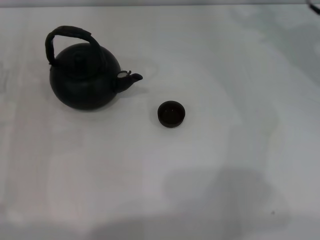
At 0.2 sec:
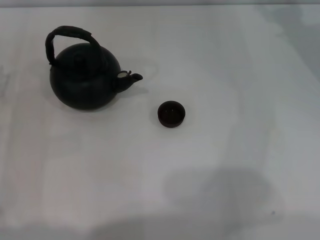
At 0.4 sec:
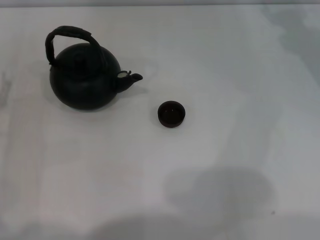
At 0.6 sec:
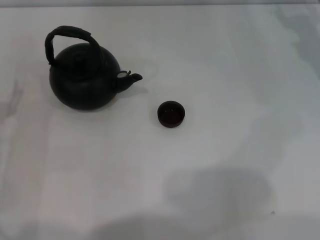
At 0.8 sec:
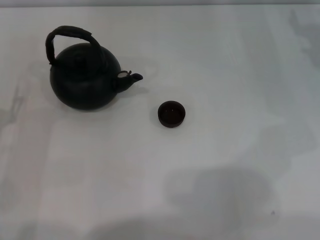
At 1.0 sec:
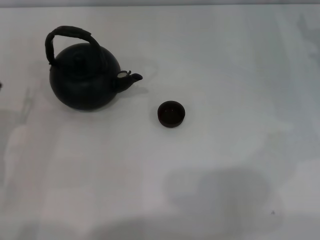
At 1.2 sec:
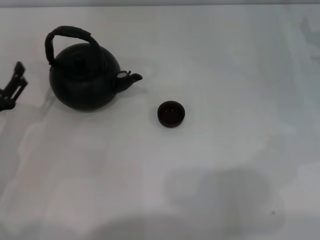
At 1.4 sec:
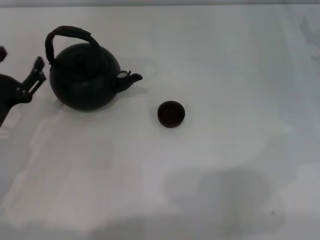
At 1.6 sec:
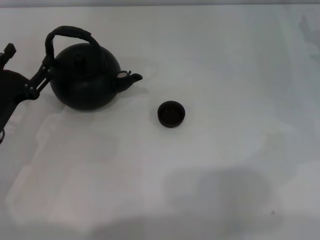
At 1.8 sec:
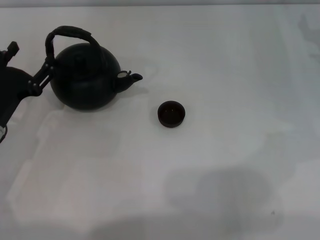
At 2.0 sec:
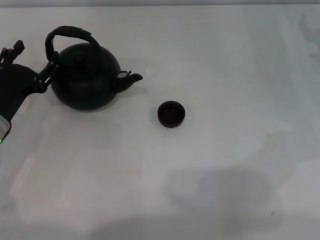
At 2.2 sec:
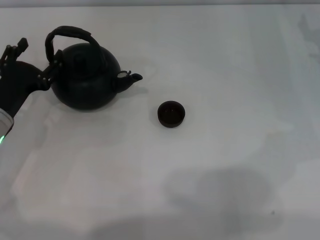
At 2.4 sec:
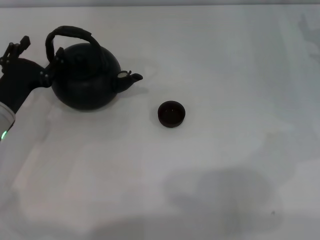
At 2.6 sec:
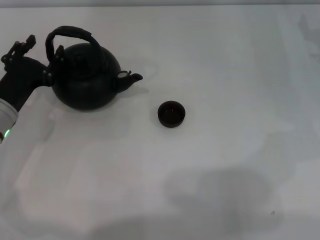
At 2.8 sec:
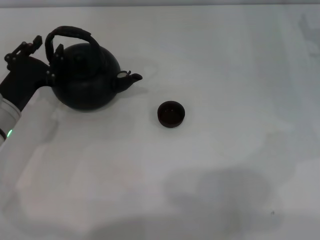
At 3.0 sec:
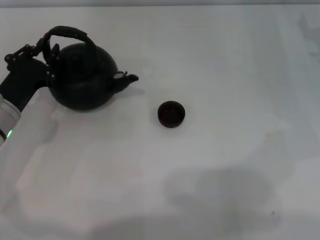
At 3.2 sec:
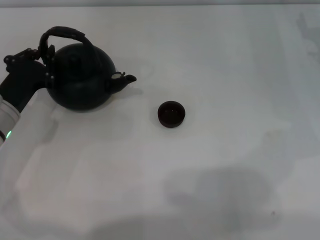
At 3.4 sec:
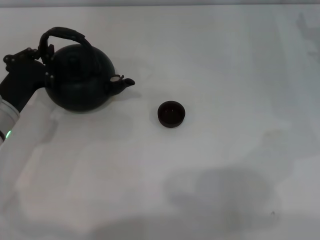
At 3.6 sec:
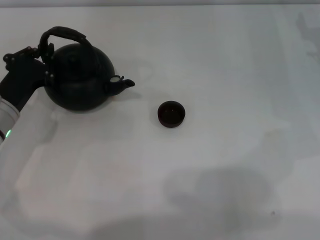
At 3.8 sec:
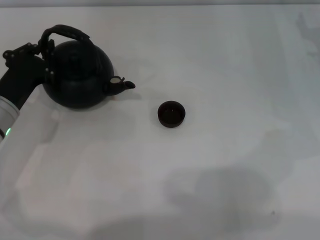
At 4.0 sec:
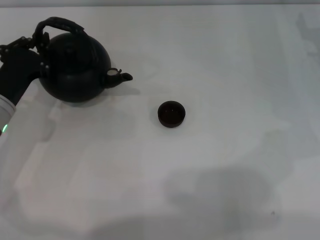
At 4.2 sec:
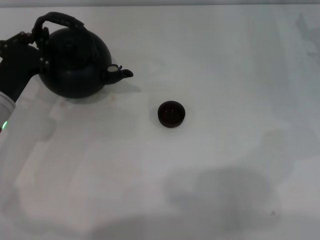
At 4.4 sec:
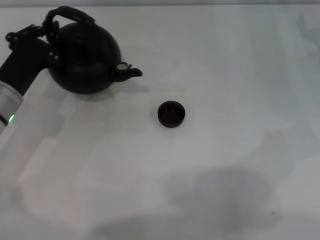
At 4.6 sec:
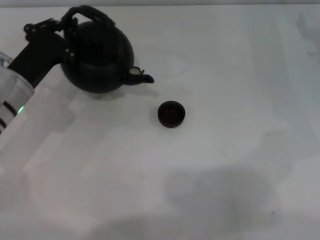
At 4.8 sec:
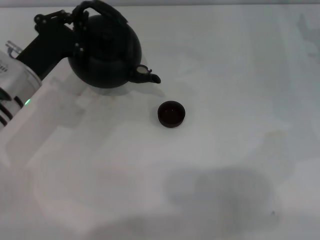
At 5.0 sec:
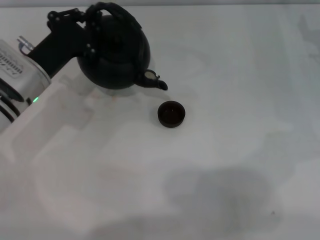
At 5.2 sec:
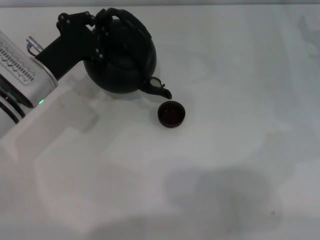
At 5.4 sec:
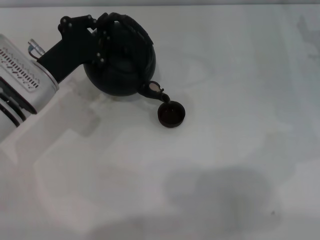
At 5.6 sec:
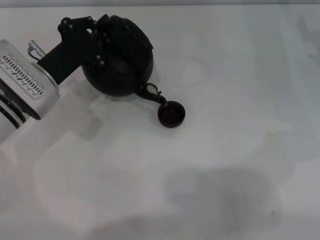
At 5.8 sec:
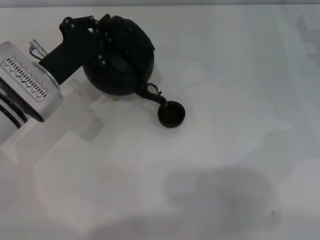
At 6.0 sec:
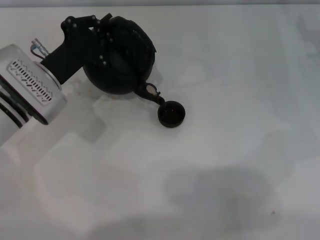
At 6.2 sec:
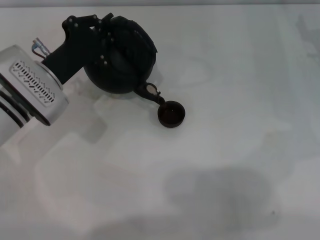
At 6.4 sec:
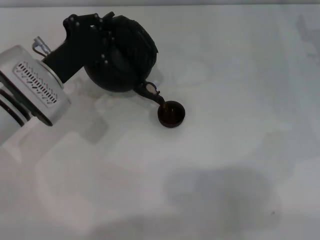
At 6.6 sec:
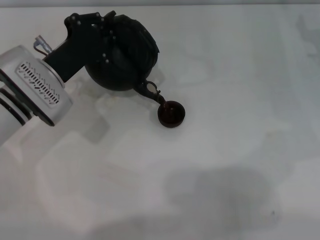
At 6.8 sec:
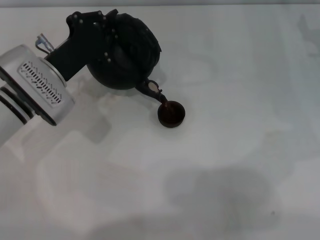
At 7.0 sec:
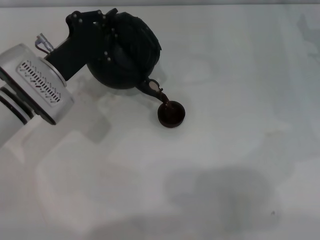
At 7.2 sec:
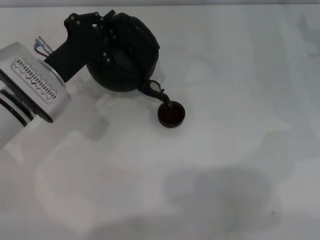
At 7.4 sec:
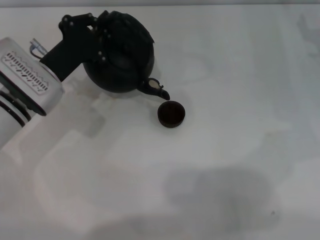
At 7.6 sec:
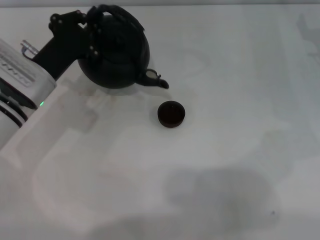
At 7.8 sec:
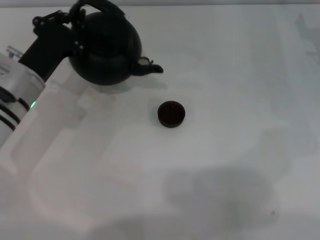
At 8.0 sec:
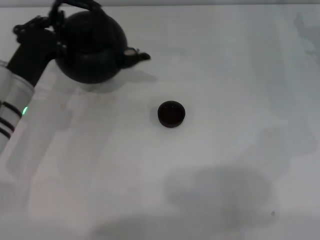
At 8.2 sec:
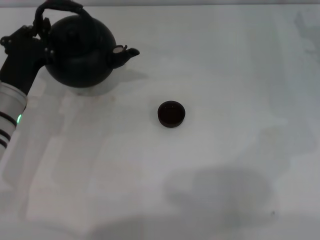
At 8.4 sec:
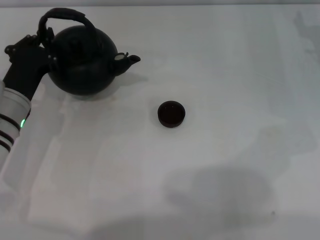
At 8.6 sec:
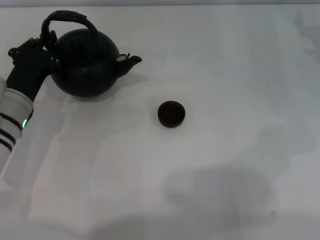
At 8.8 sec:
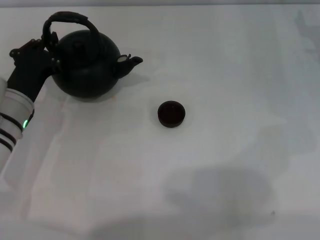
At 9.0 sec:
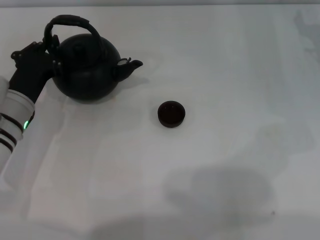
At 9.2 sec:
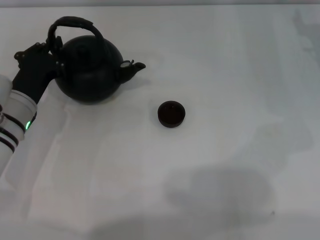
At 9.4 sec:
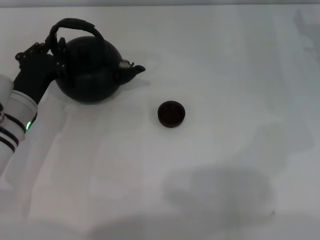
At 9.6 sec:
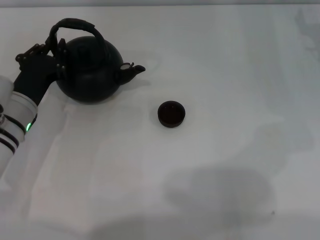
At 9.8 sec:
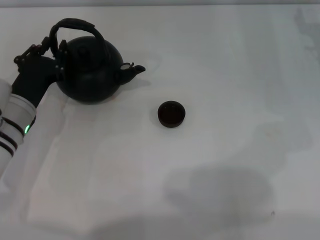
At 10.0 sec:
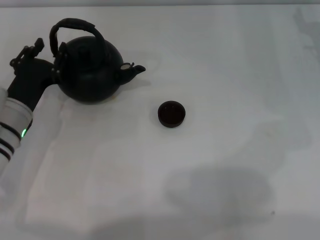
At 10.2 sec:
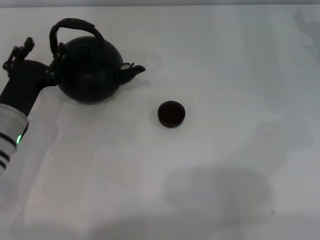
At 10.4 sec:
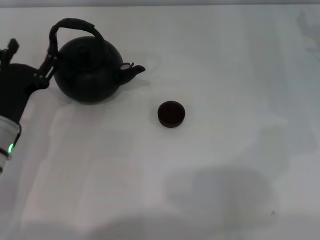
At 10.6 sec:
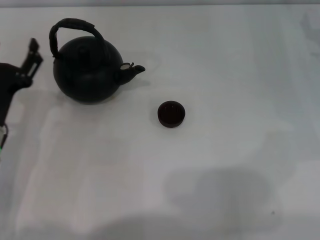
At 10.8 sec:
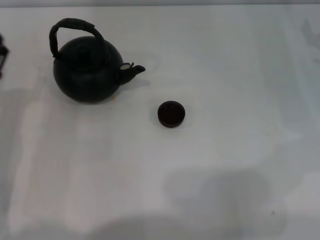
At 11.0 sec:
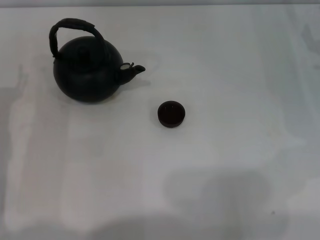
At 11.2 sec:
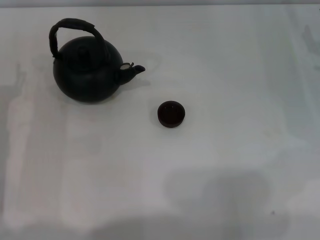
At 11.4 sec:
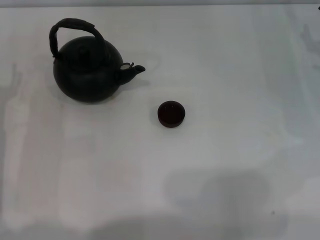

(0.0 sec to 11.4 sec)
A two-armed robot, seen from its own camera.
Task of the whole recording: Grasp the handle of the teapot with one hand and pour tea into the teacup.
Step, 0.0 sec - 4.6 sec: Pick up the teapot with the left gripper.
Step, 4.8 sec - 7.8 sec: Pour tea into the teacup with the left gripper.
Step, 8.0 sec - 10.0 sec: Put down the teapot with the left gripper.
1.4 sec - 2.8 sec: The left gripper goes some 5 cm forward, and closes.
2.8 sec - 4.2 sec: The left gripper closes.
4.2 sec - 5.6 sec: The left gripper shifts roughly 5 cm to the right.
5.6 sec - 7.2 sec: There are only small adjustments of the grippers.
7.2 sec - 8.6 sec: The left gripper changes place by roughly 5 cm.
8.6 sec - 10.0 sec: The left gripper opens its fingers.
10.0 sec - 11.4 sec: The left gripper shifts about 5 cm to the left, and opens up.
